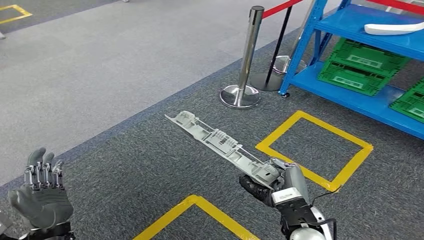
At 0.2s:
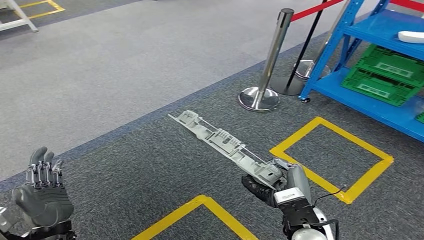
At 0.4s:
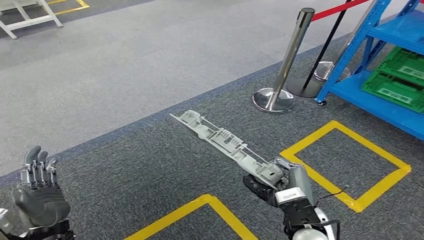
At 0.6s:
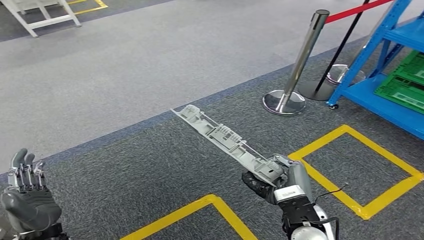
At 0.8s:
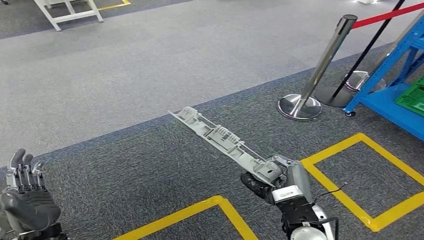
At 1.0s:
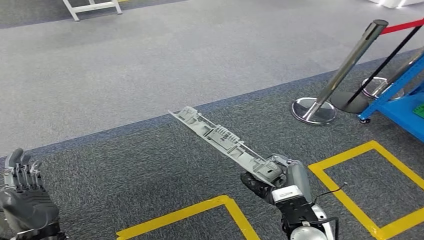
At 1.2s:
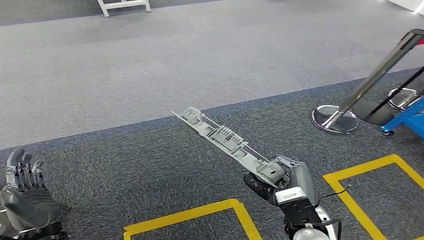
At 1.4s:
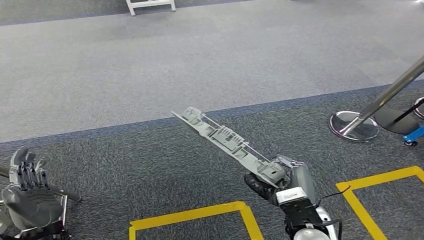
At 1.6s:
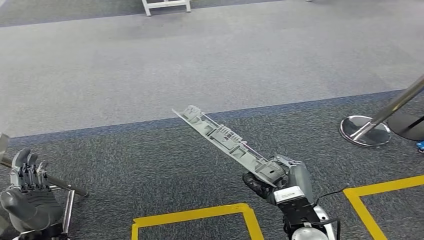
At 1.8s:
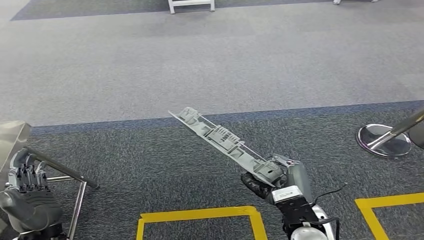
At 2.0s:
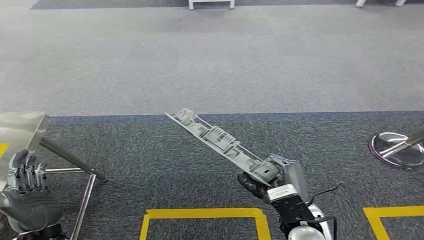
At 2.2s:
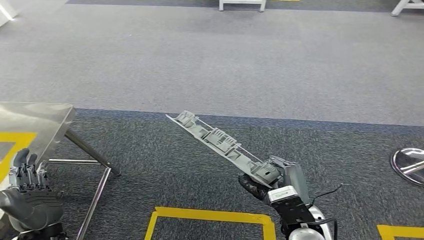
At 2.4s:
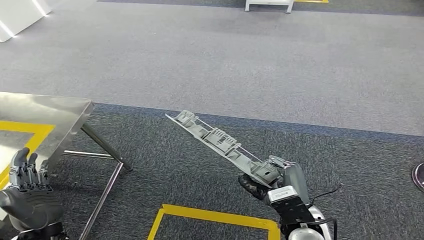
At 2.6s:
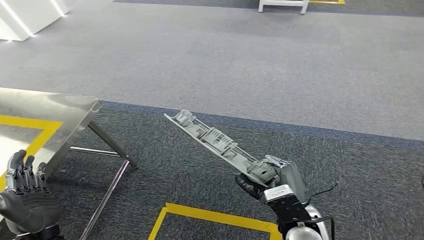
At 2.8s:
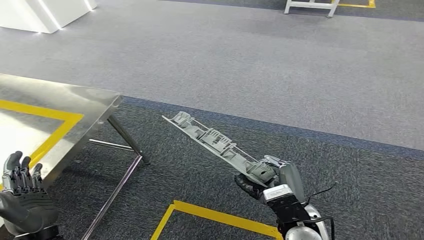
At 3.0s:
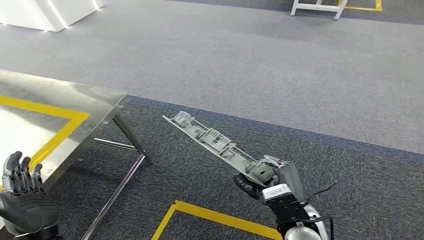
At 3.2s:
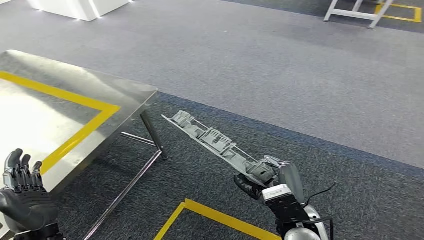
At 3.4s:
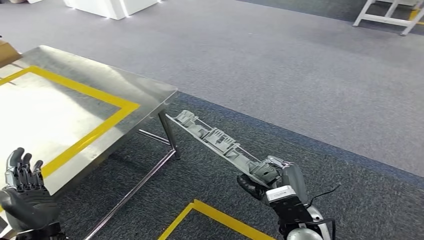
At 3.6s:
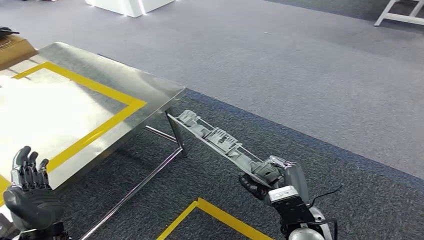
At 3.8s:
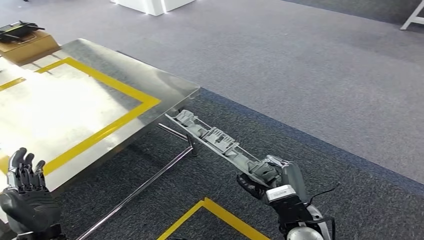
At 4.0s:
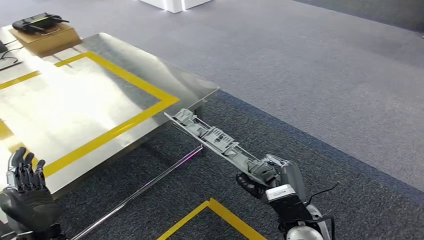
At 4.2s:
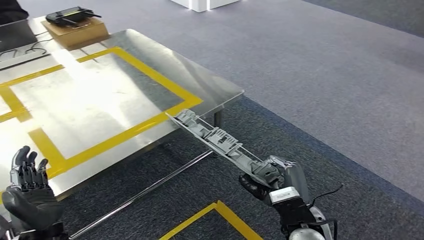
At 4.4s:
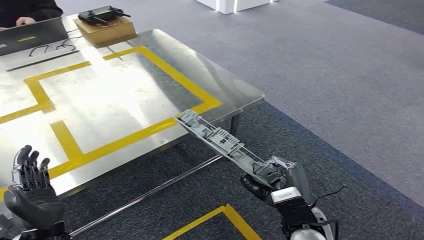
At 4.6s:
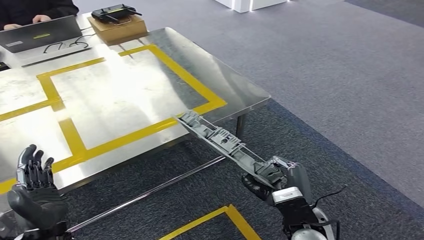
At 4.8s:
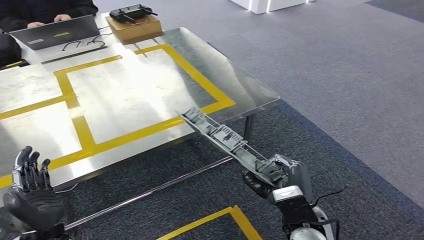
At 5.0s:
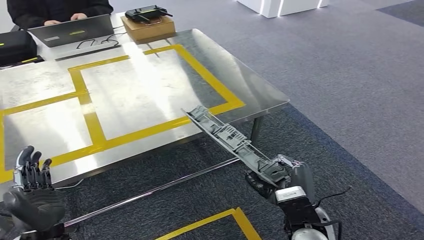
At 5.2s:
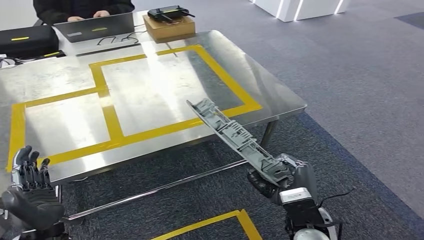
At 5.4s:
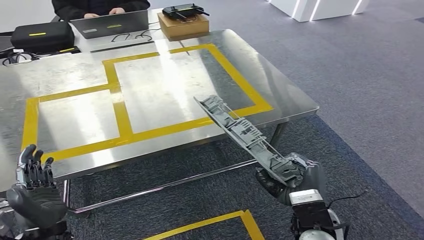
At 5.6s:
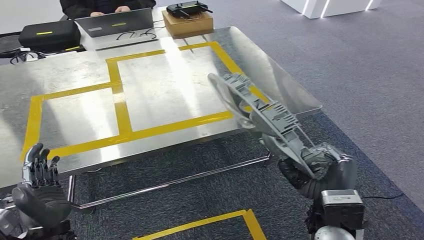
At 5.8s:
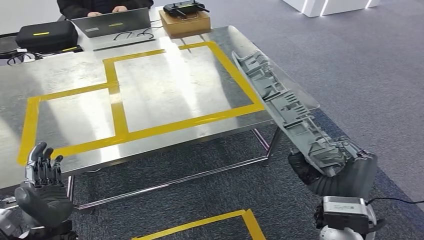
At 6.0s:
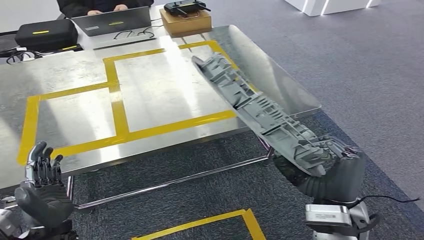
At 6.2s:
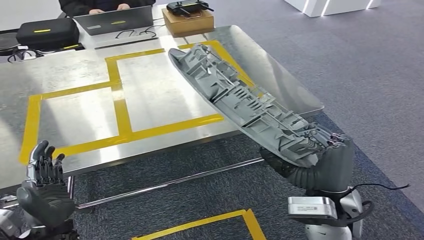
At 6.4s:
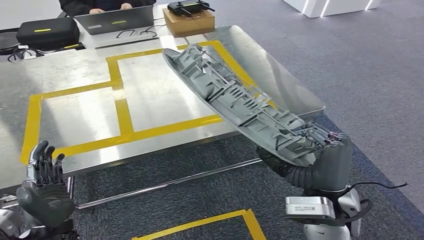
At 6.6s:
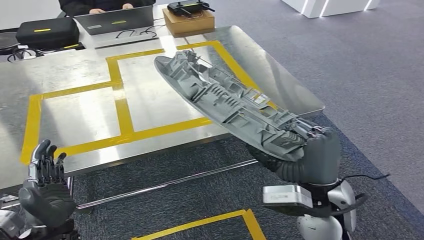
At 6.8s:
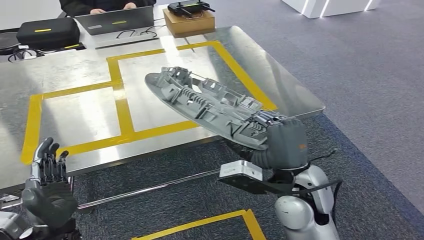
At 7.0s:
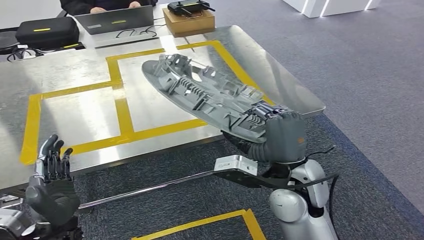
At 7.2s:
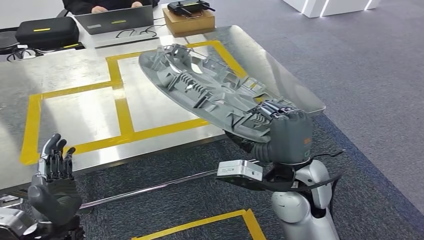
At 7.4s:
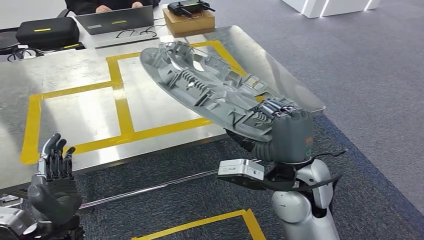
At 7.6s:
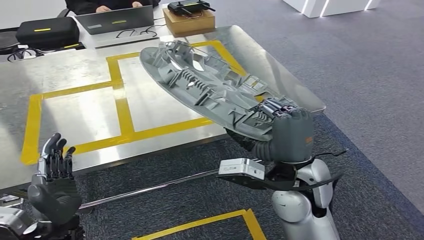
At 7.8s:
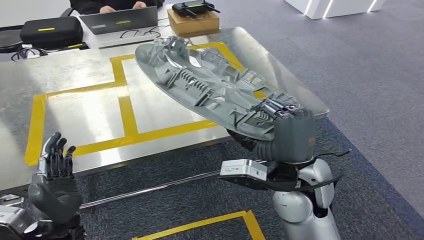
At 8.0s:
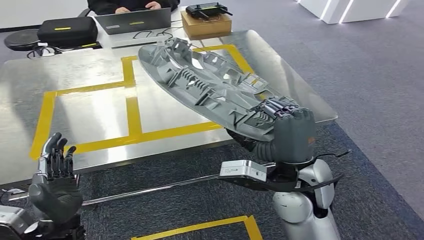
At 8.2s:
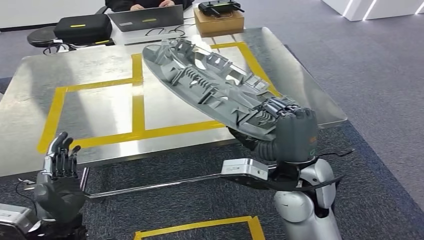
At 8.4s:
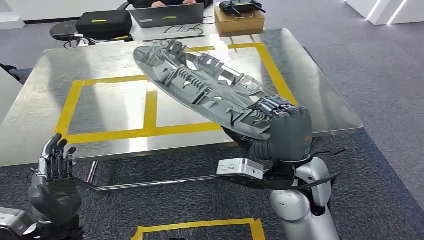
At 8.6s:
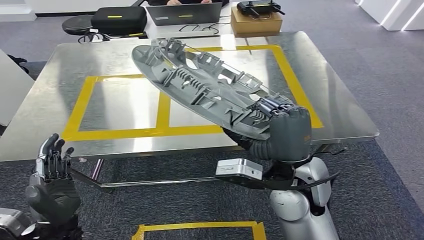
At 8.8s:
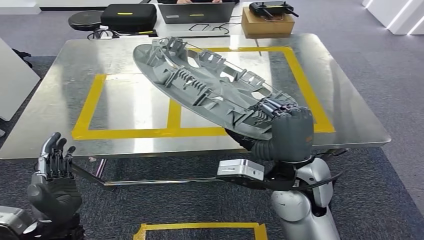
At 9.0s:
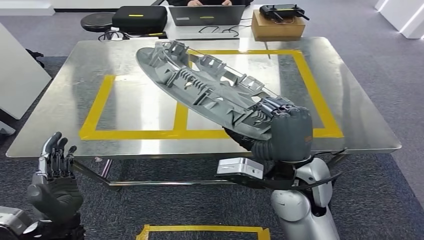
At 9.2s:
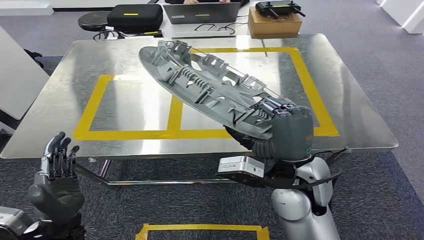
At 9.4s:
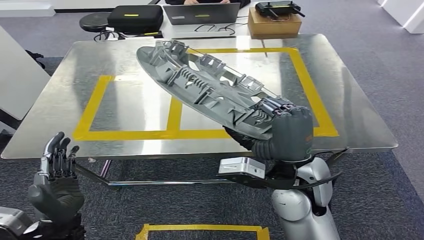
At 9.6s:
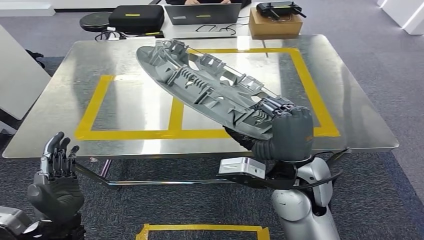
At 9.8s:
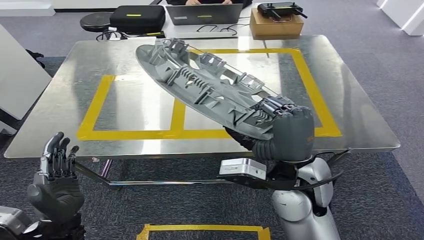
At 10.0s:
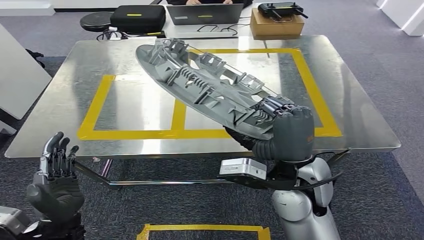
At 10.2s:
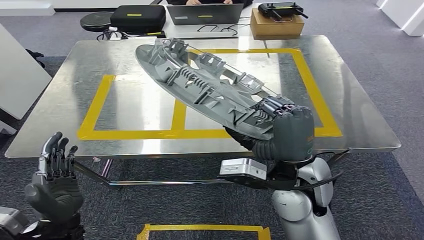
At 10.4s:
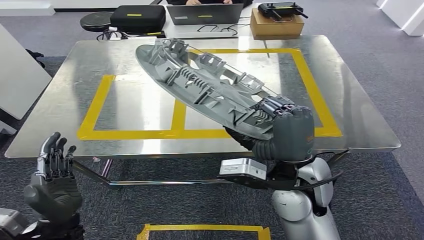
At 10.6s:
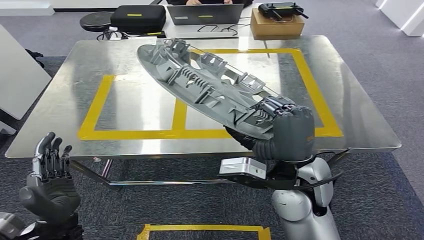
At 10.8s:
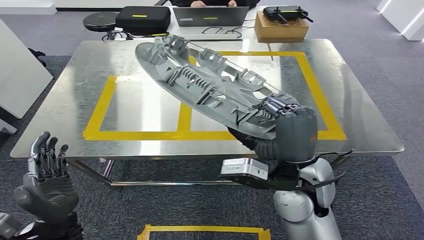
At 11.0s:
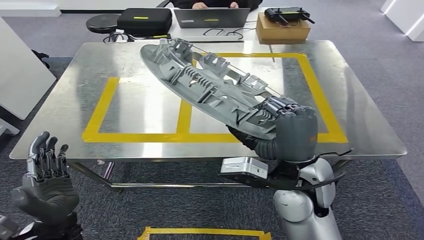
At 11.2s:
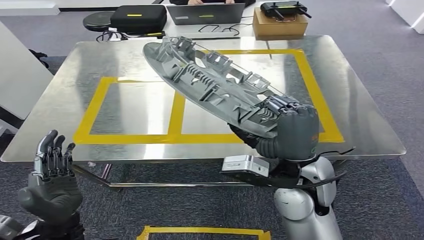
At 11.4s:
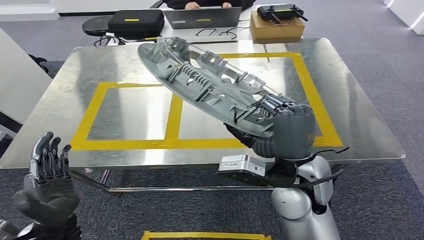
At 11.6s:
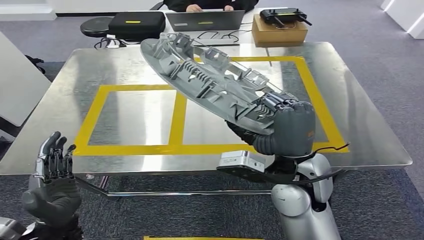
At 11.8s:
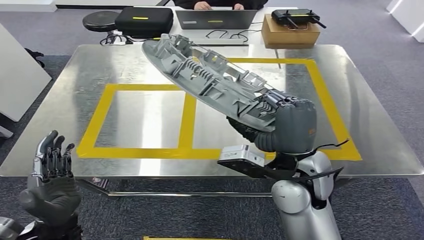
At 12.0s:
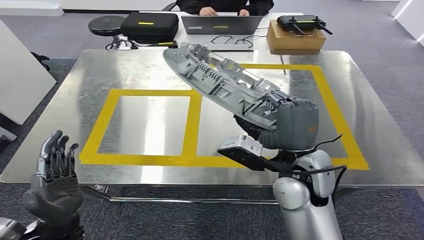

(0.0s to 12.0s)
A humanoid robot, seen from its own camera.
Step, 0.0s - 5.4s: Bring the small component to the front of the workbench.
9.0s - 10.4s: The two hands keep their place.

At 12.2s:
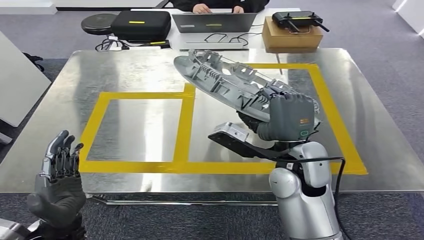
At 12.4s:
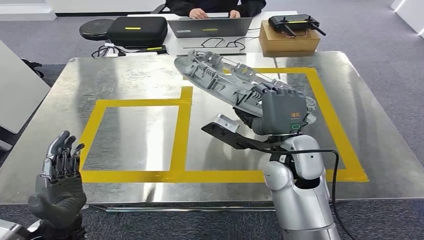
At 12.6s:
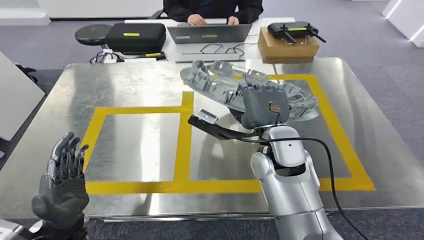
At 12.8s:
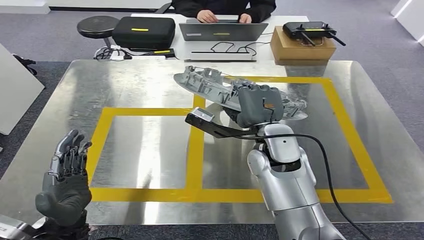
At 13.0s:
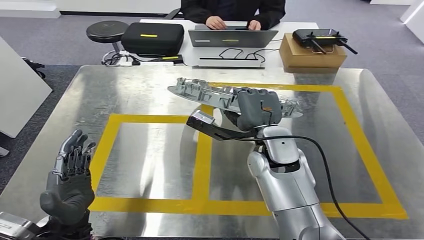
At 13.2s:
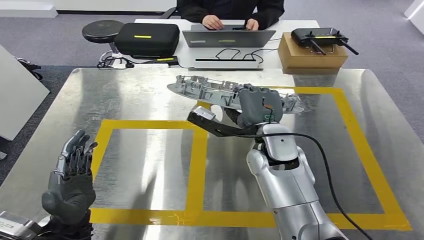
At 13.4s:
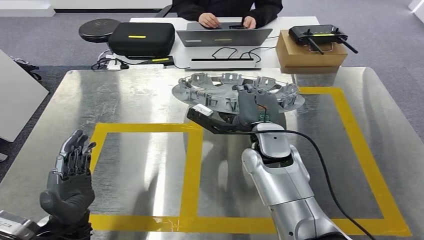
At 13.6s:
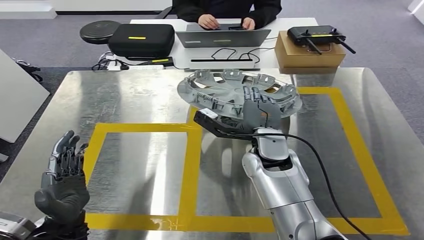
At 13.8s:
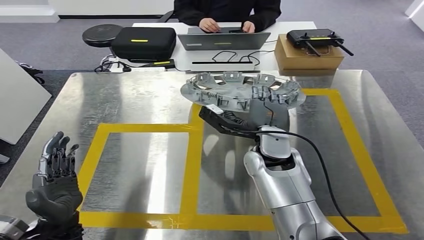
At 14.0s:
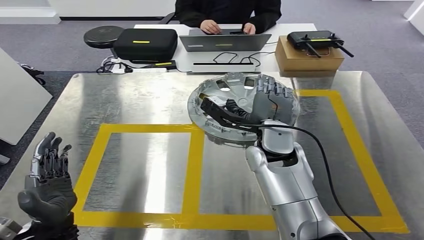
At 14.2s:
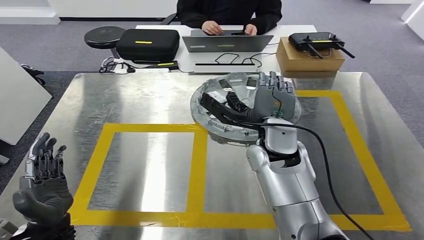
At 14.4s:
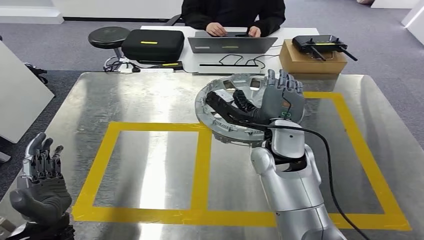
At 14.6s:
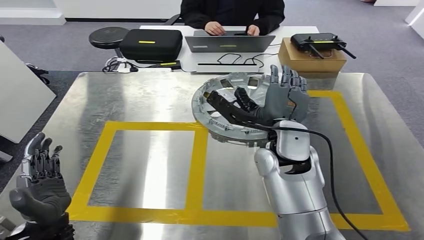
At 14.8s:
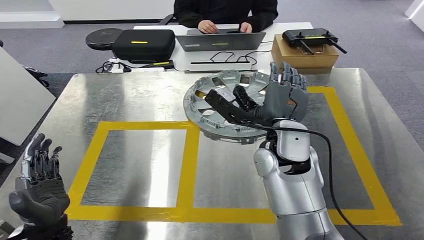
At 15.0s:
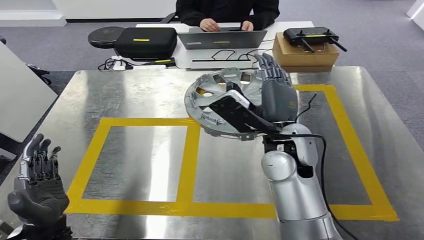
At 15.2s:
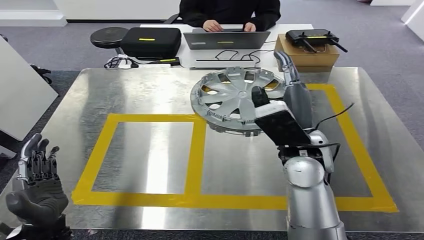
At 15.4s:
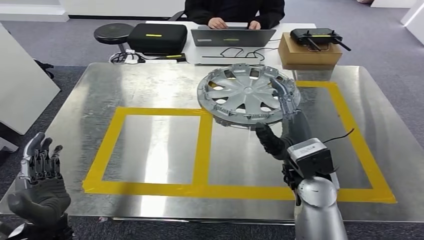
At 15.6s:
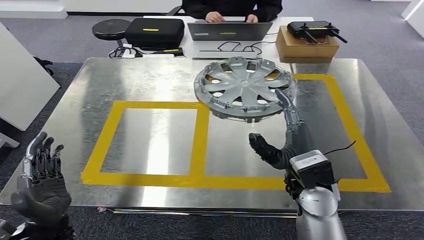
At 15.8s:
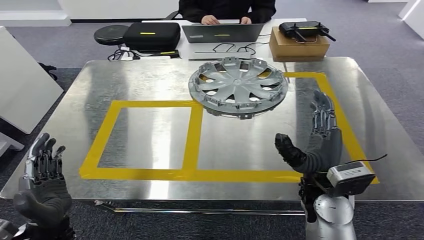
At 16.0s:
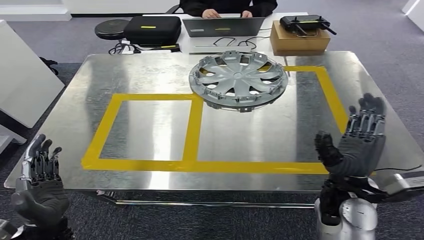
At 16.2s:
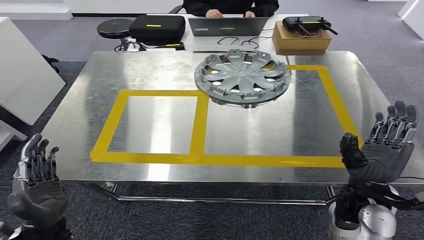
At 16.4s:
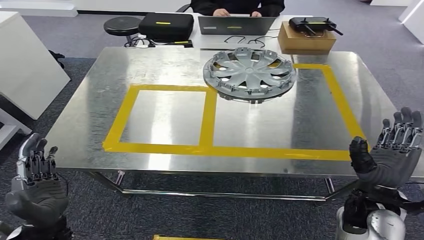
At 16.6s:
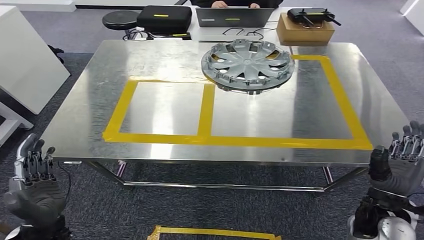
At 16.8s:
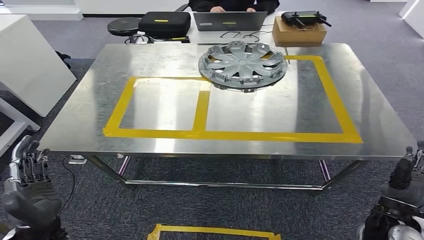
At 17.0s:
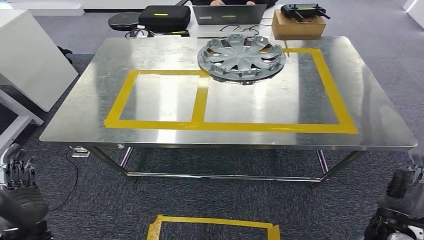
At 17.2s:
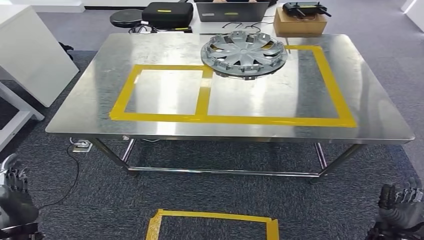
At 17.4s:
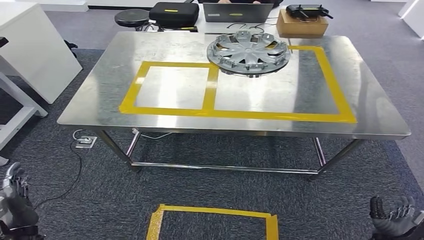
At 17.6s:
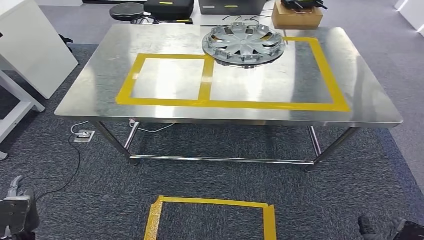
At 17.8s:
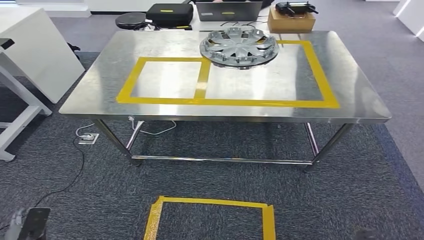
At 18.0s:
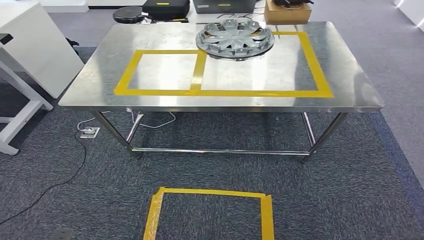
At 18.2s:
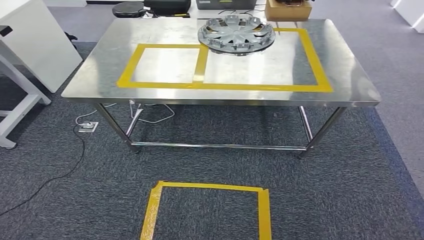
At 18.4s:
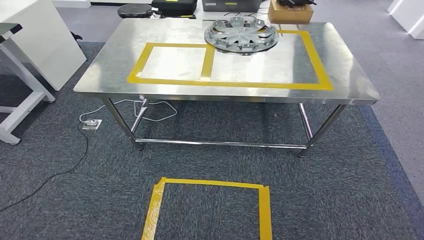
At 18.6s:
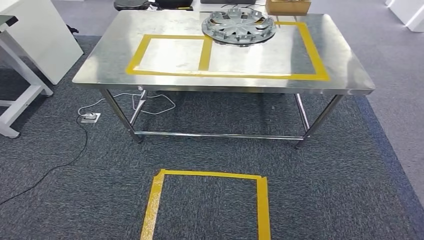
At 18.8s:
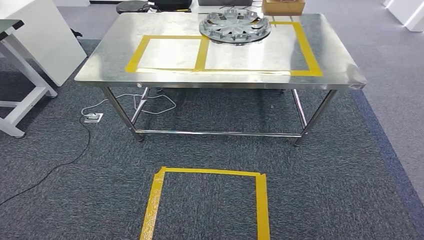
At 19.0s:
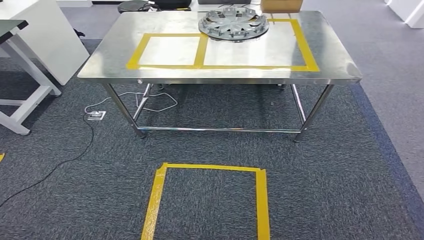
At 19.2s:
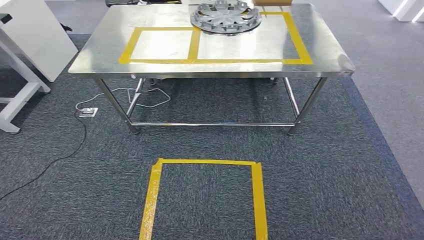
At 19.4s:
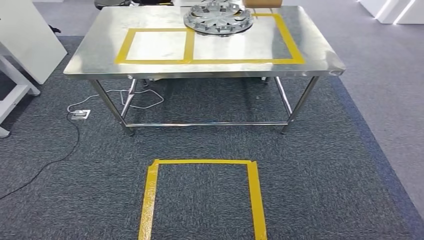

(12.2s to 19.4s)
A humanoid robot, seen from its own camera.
Step, 12.2s - 14.8s: Insert the small component into the corresponding slot on the workbench.
